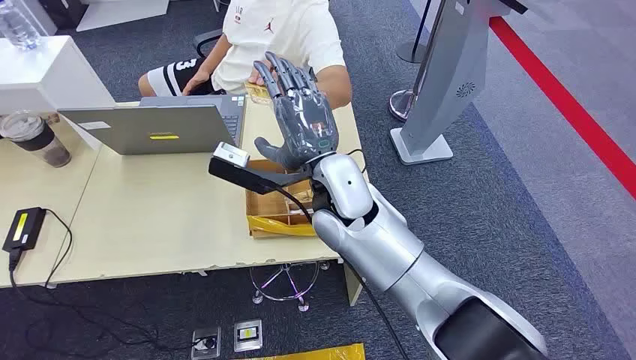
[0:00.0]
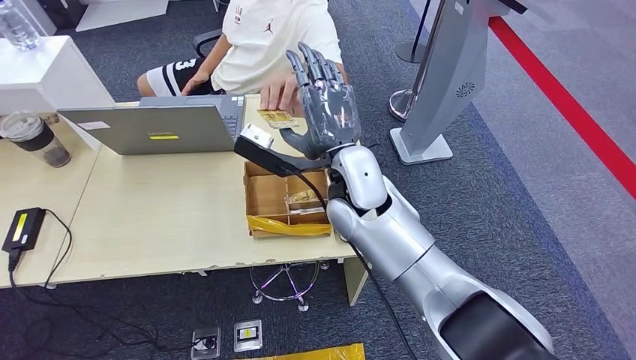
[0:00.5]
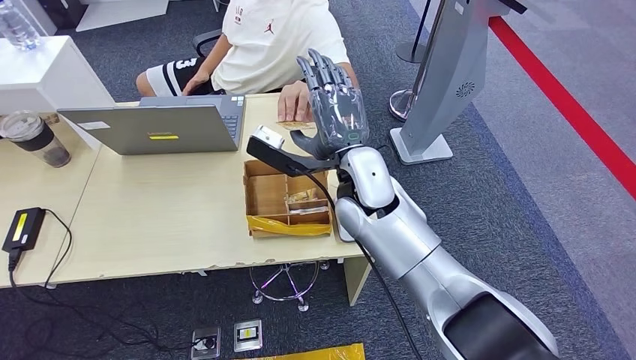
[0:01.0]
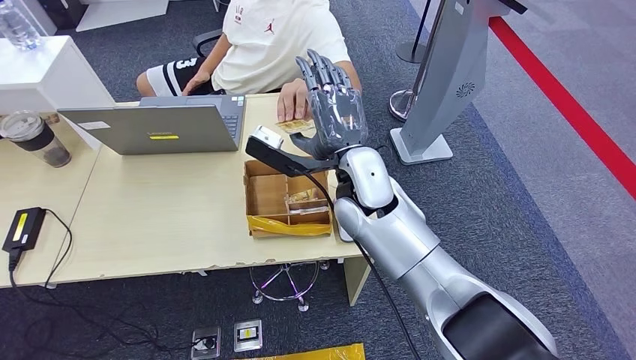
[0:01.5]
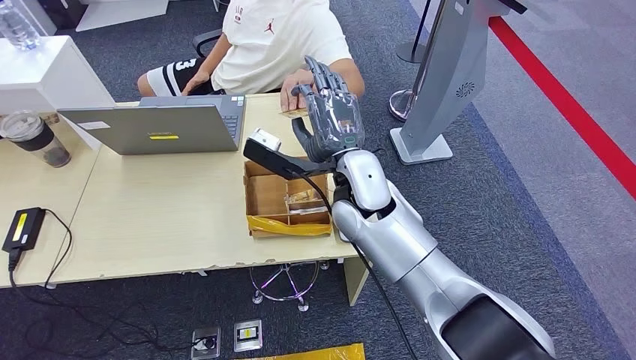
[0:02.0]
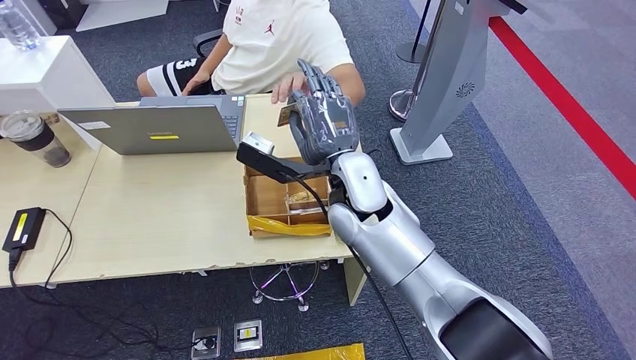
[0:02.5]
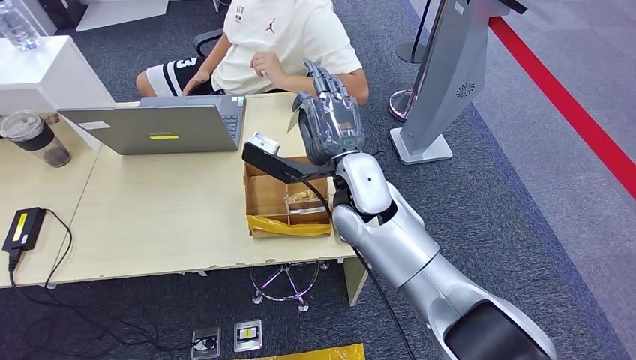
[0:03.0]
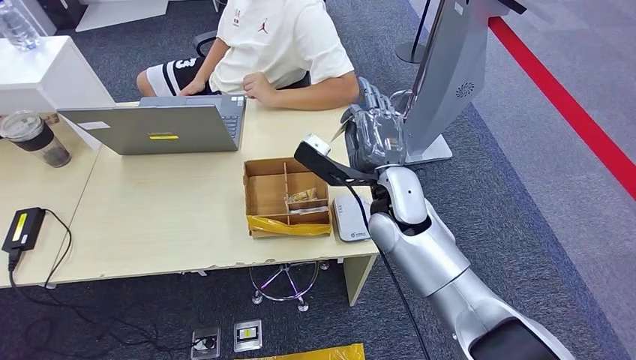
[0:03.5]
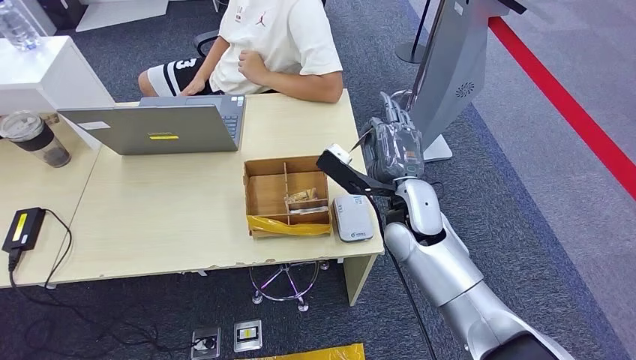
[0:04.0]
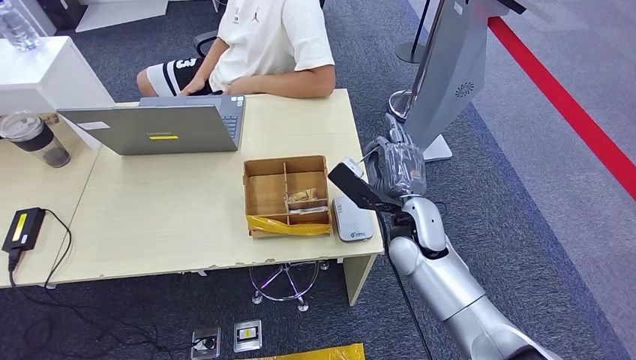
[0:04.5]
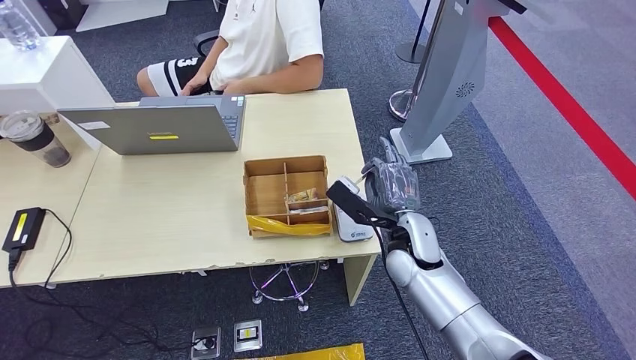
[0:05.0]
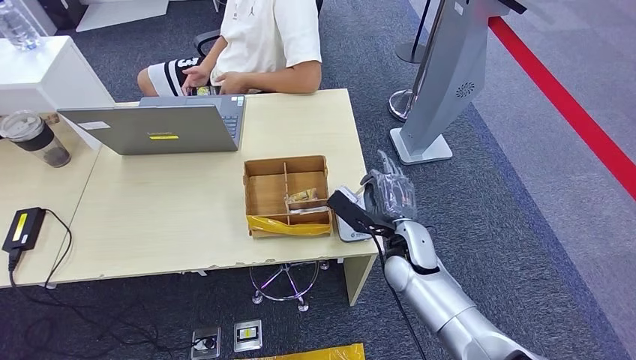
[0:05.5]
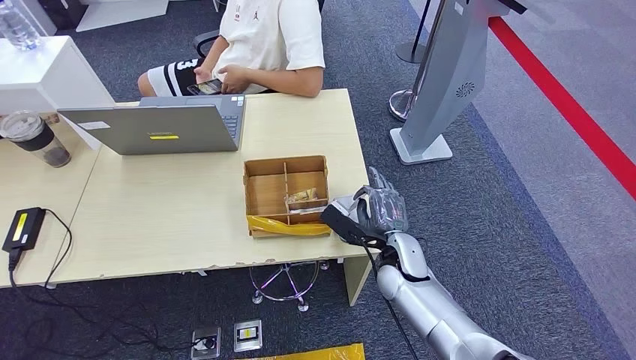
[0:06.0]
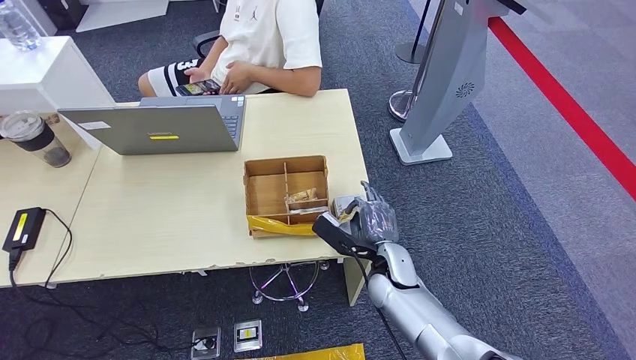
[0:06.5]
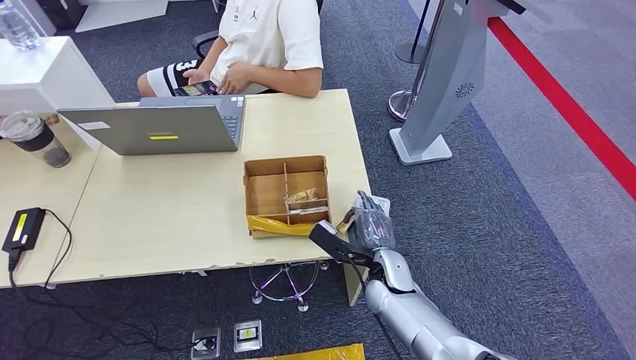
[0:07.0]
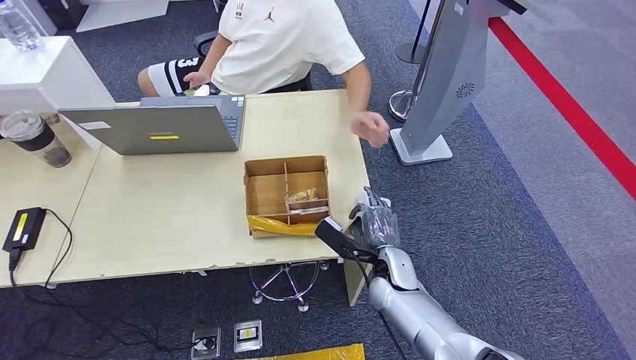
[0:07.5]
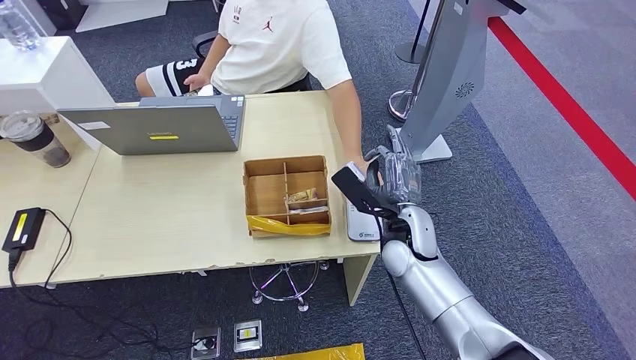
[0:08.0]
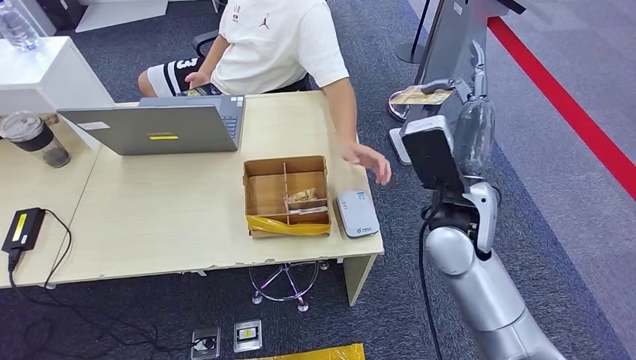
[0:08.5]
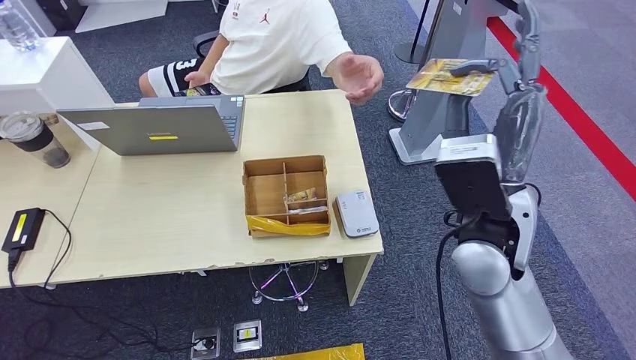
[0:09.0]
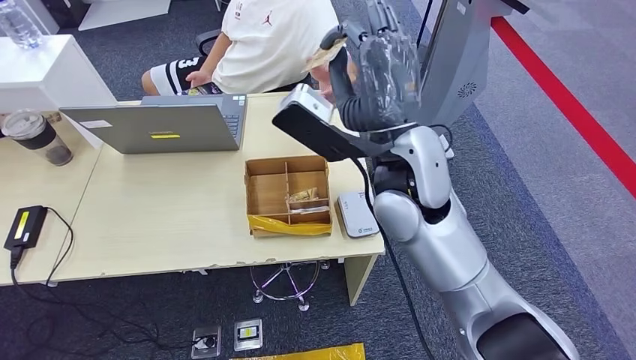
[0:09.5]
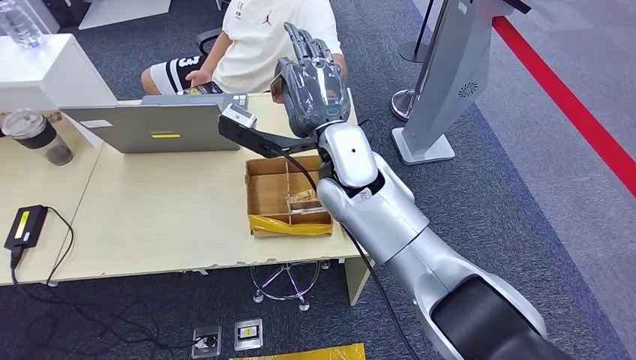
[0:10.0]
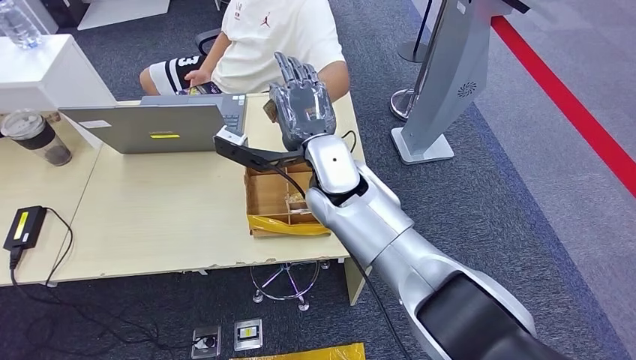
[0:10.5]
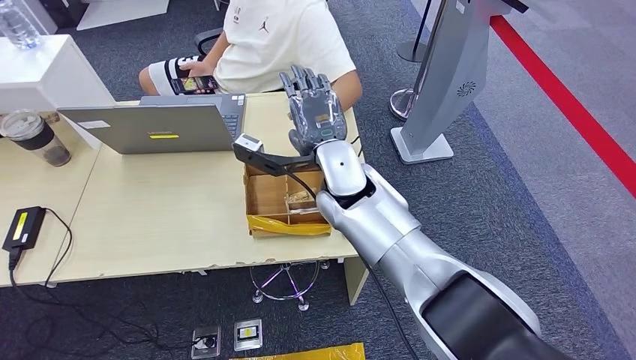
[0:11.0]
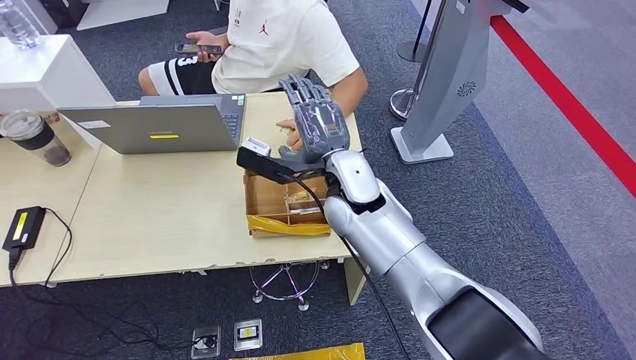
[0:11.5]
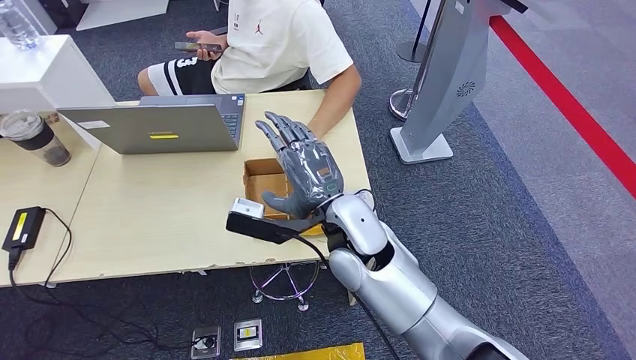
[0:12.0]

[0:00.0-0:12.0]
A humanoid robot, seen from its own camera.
Step, 0:00.0 to 0:02.5: Take the ID card from the person's hand.
Step, 0:04.0 to 0:06.0: Place the ID card on the card reader.
Step, 0:09.5 to 0:10.5: Hand the ID card to the person.
0:02.0 to 0:04.0: The right hand moves to the right and downward, approximately 10 cm.
0:04.0 to 0:06.0: The right hand heads downward, covering approximately 10 cm.
0:06.0 to 0:08.0: The right hand travels upward by about 5 cm.

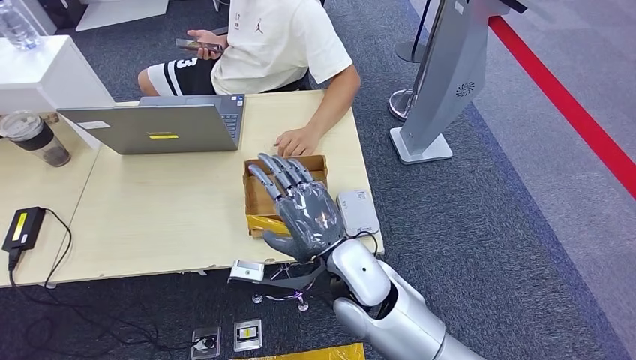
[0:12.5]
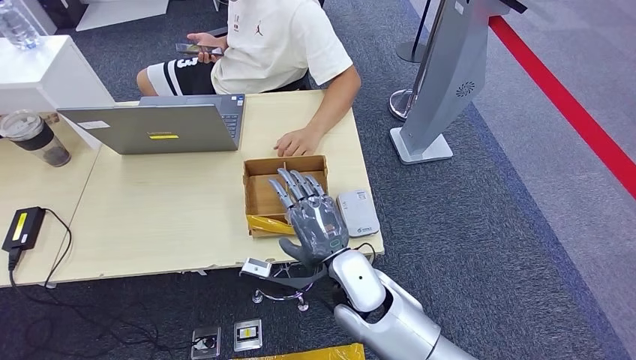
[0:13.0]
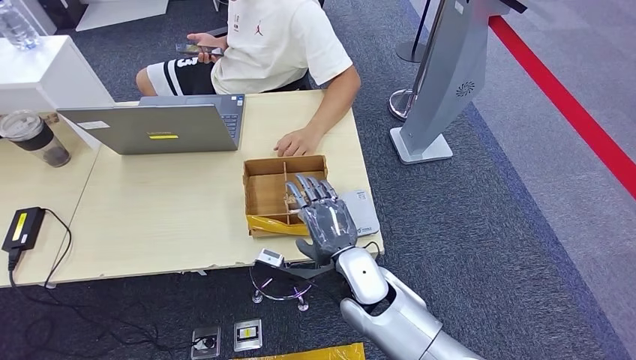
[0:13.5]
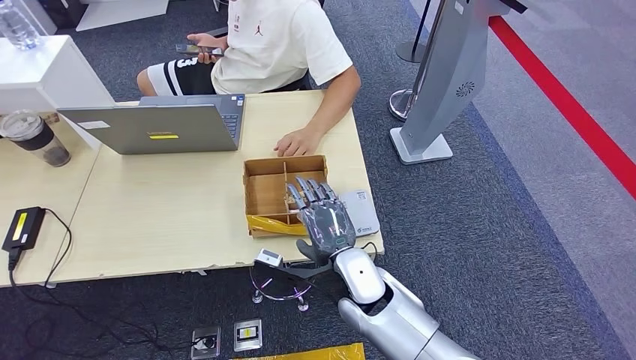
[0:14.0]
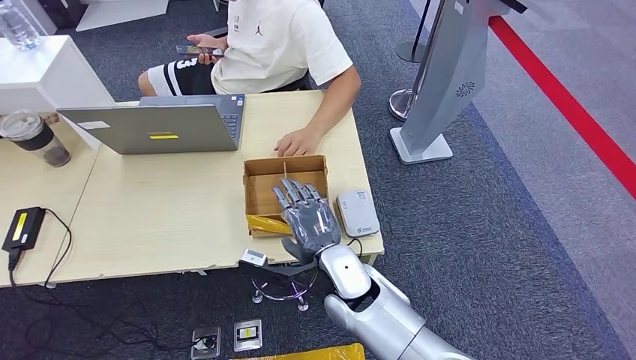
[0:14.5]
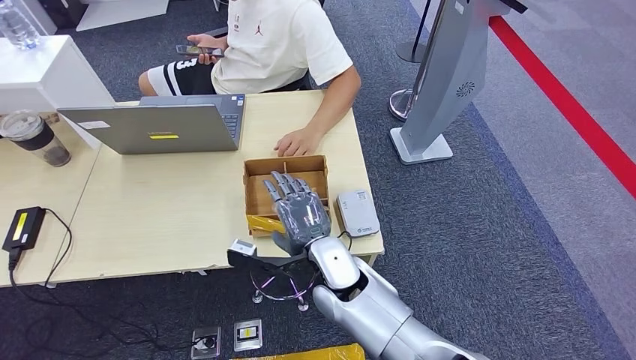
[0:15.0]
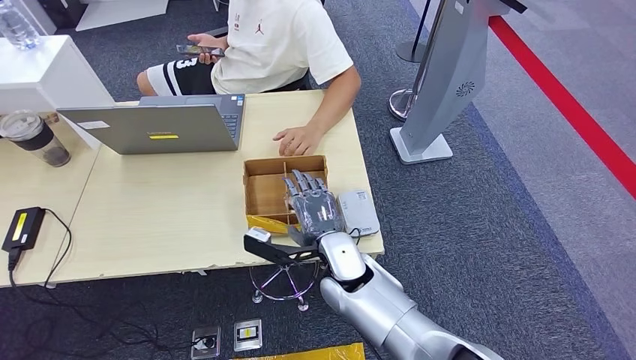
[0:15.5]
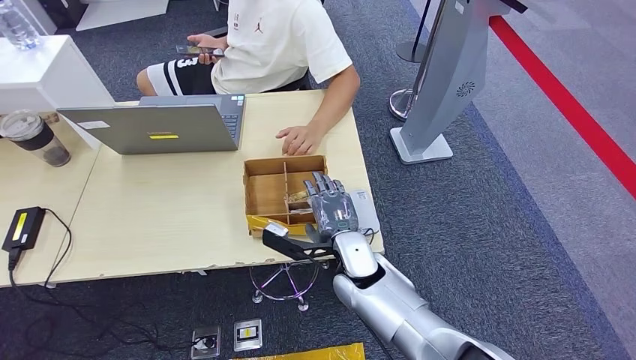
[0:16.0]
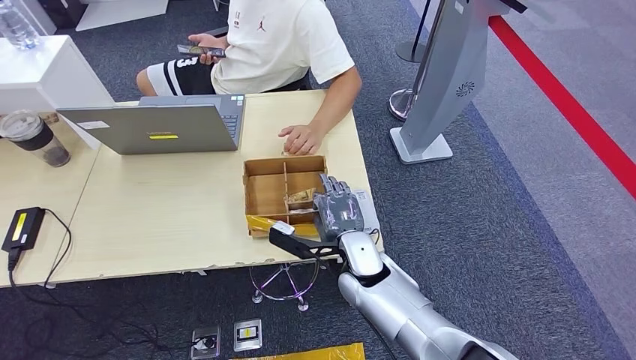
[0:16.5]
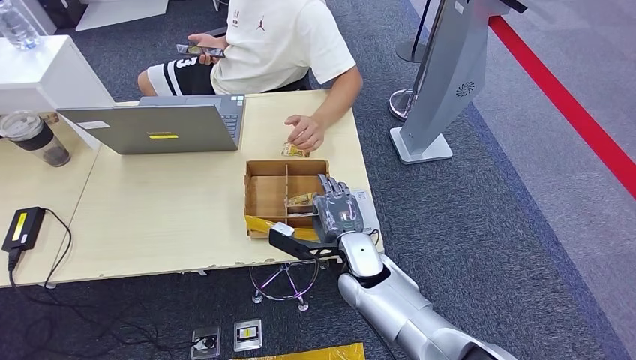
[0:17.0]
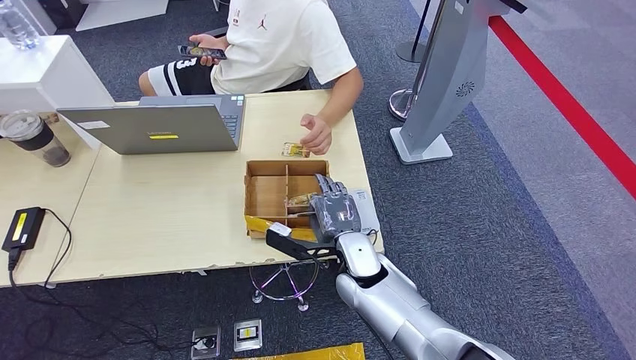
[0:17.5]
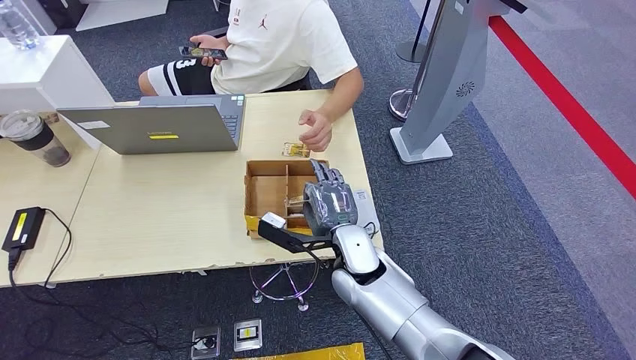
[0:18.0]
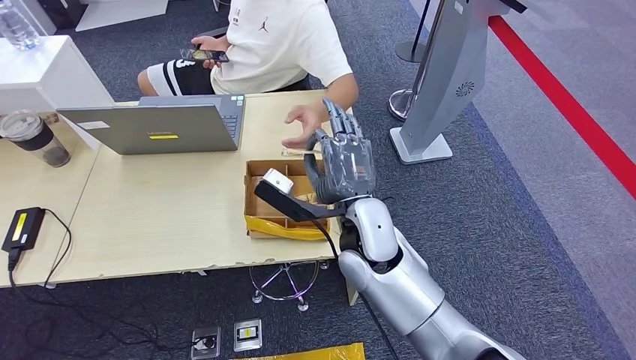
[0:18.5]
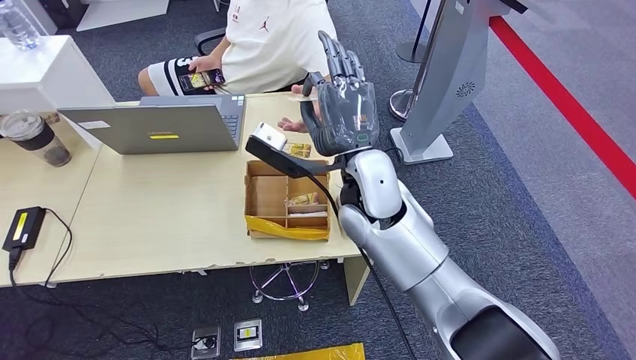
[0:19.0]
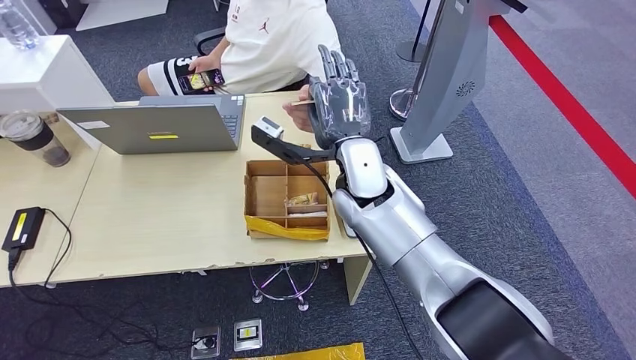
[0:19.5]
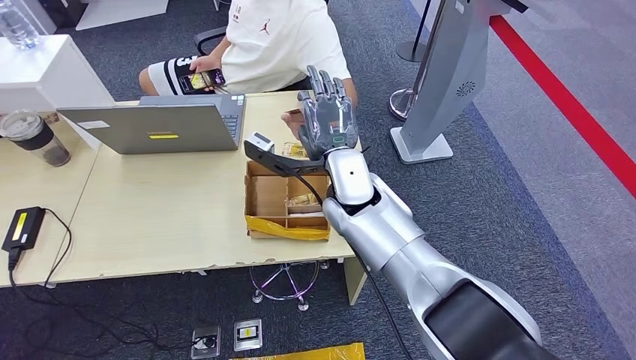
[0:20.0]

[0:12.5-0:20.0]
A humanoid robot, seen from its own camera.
Step, 0:16.5 to 0:18.0: Pick up the room key from the key card box.
Step, 0:18.5 to 0:20.0: Hand the room key to the person.
0:12.5 to 0:14.5: The right hand goes roughly 5 cm downward.
0:14.5 to 0:16.5: The right hand changes place by some 5 cm.
0:16.5 to 0:18.0: There are only small adjustments of the hands.
0:18.0 to 0:20.0: The right hand heads upward and forward, covering approximately 15 cm.
